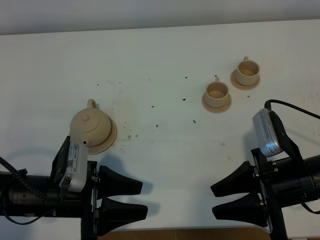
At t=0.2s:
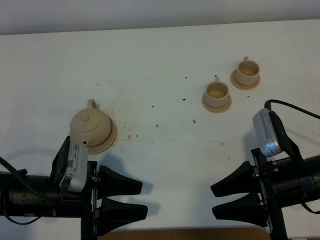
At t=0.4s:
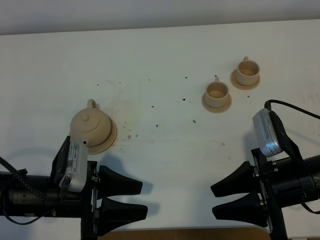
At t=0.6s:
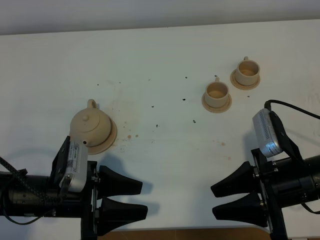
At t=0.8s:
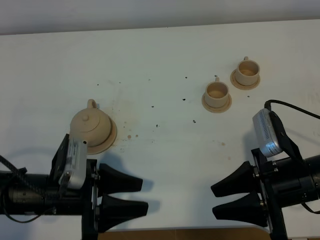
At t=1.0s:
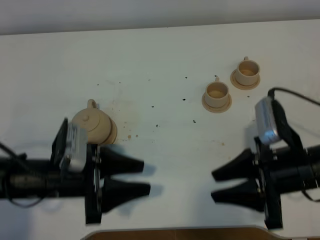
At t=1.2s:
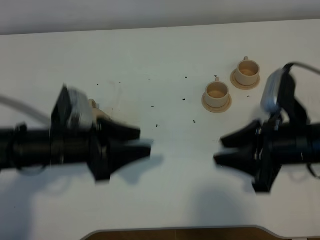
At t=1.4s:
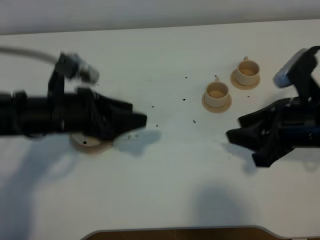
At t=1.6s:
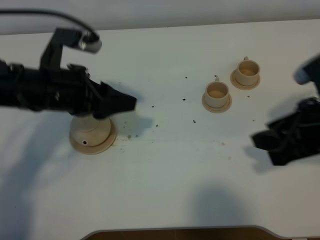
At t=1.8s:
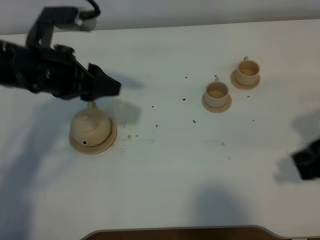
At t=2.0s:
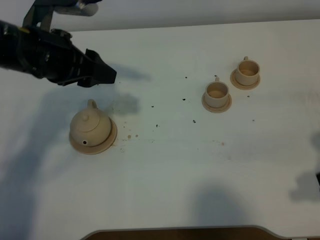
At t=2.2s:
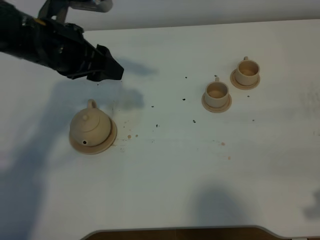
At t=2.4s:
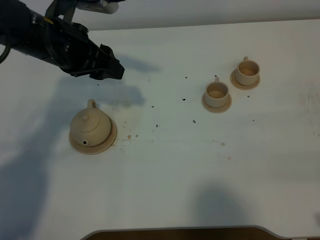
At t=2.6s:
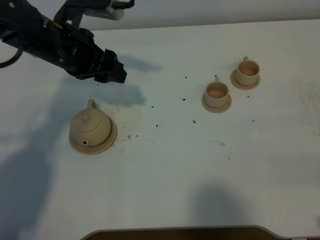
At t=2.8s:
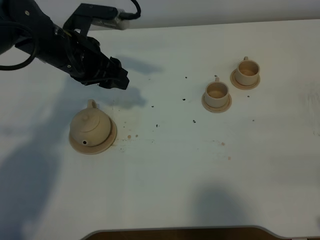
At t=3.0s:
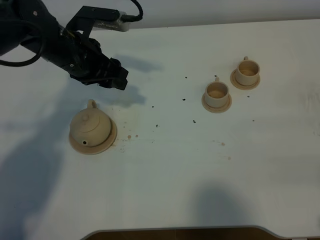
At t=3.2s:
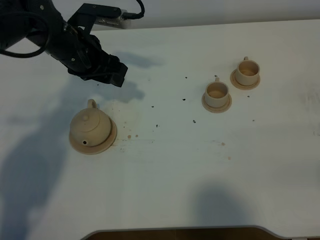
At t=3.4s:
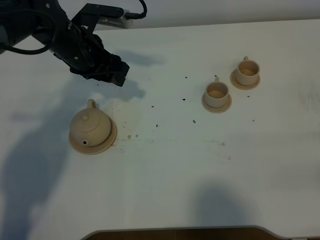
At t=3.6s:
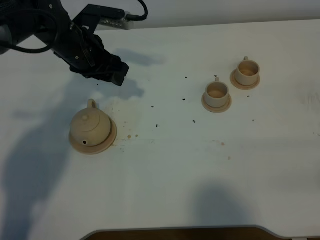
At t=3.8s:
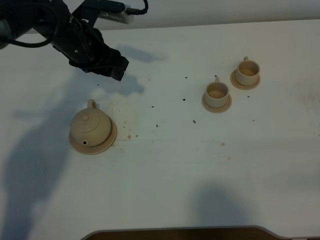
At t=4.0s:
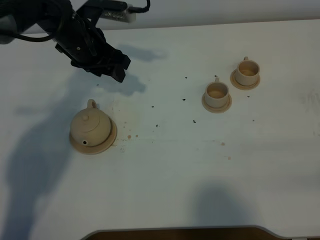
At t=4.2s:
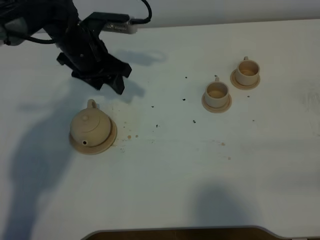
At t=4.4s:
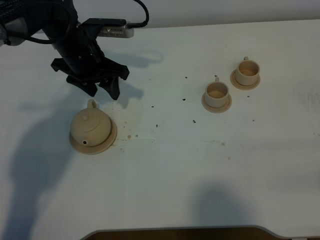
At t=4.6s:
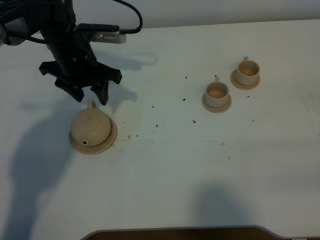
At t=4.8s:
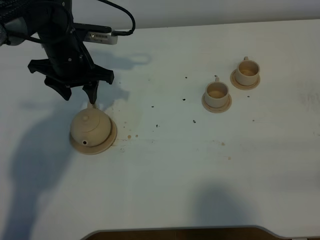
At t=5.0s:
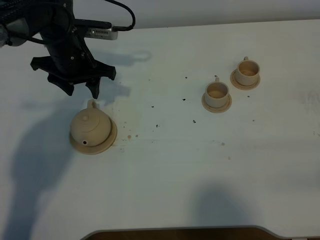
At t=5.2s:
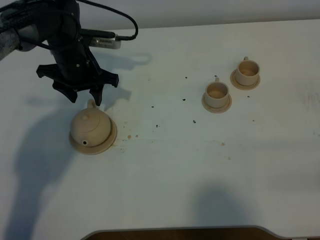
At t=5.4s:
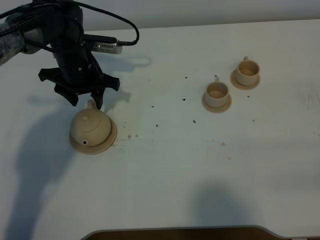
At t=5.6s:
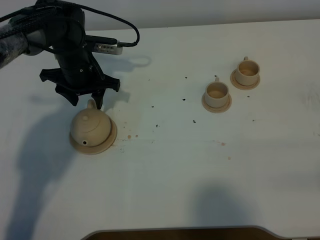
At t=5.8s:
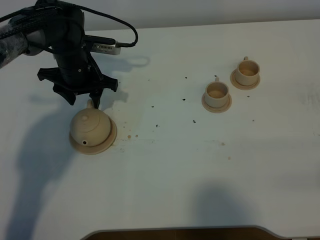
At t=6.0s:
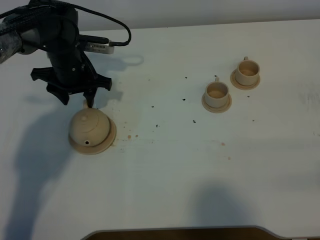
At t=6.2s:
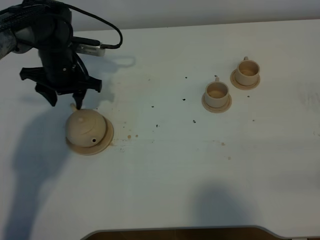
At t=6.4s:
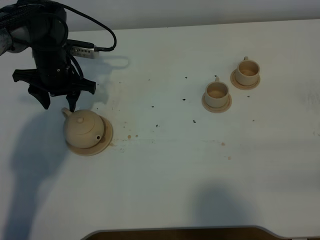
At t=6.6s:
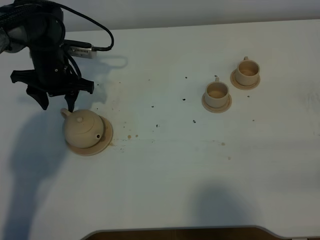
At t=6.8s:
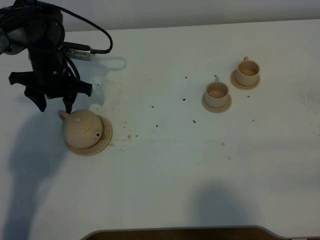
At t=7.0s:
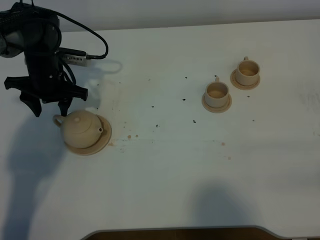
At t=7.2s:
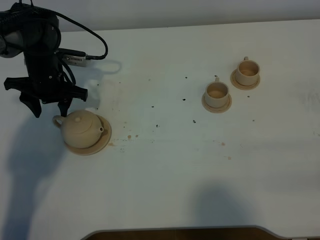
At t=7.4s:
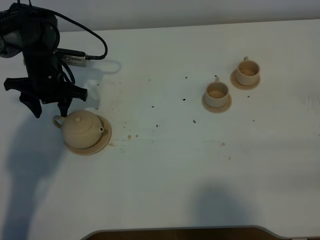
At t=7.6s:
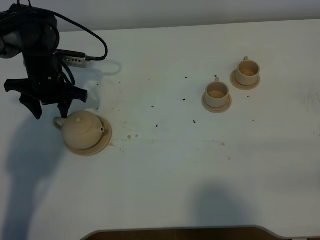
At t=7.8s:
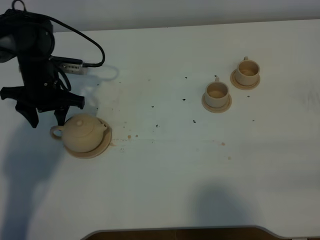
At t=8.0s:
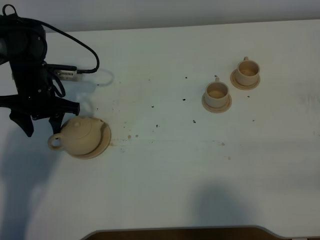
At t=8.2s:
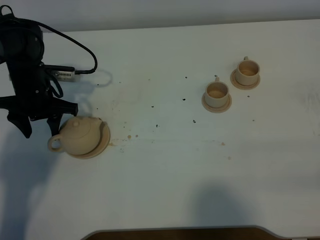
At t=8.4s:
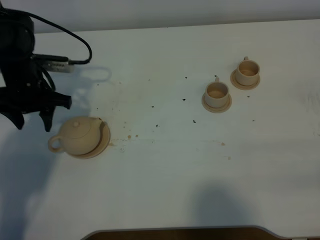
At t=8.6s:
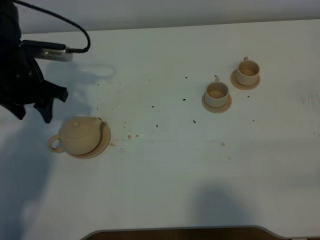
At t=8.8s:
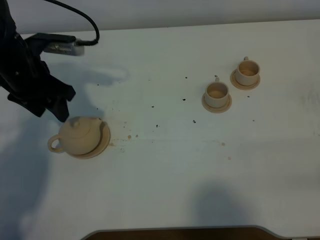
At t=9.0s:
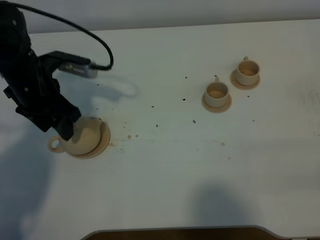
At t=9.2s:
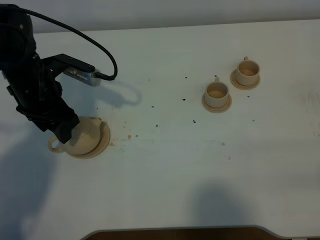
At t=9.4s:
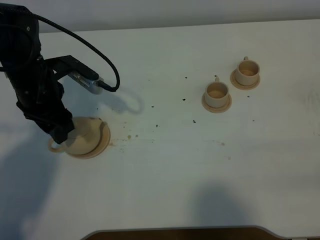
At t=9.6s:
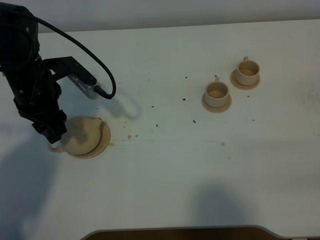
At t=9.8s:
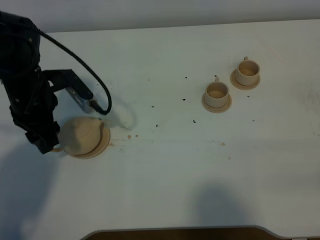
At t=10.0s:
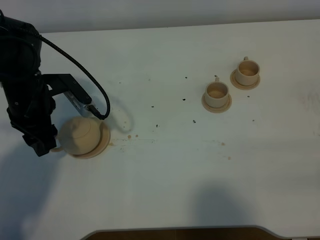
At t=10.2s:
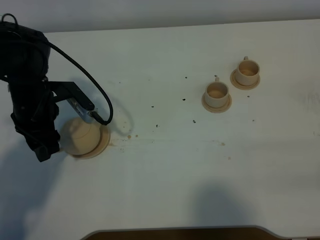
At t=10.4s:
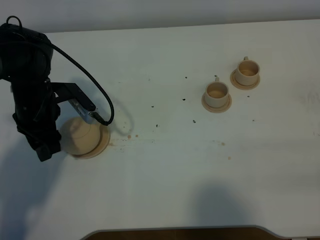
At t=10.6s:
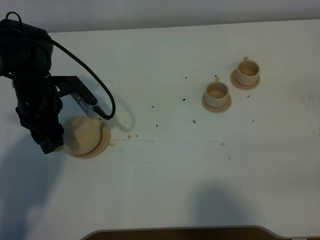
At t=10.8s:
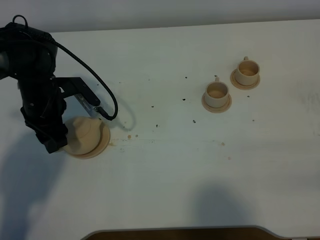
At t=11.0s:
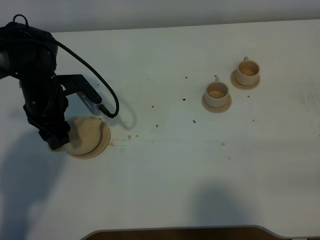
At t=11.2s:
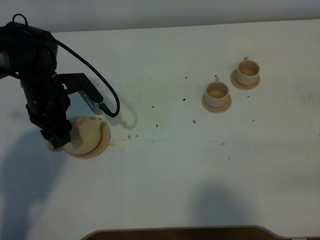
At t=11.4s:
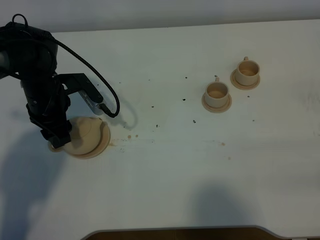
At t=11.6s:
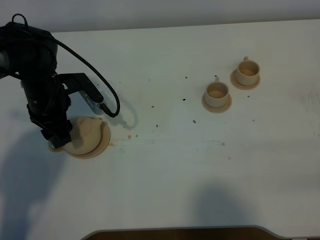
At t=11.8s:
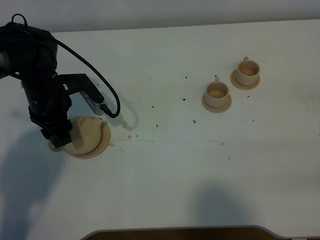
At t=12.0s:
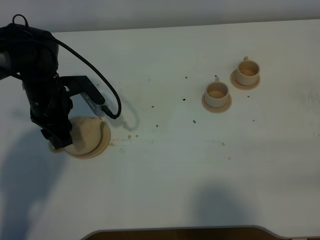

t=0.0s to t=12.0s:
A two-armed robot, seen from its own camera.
Task of the whole recording: grasp the brown teapot and pour the tea into the two brown teacups one by one, put the brown teapot back in its original place.
t=0.0s to t=1.6s: The right gripper heads upward, covering about 10 cm. Meanwhile the left gripper heads forward and upward, covering roughly 15 cm.
t=1.6s to t=3.0s: The left gripper goes roughly 10 cm forward. Meanwhile the right gripper shifts approximately 15 cm backward and to the right.
t=4.4s to t=6.0s: The left gripper ends up some 5 cm from where it was.
t=6.0s to t=7.6s: The grippers move only a little.
t=7.6s to t=9.0s: The left gripper shifts approximately 10 cm backward and upward.
t=10.4s to t=12.0s: The left gripper closes.

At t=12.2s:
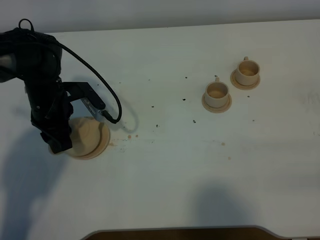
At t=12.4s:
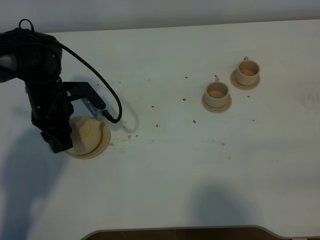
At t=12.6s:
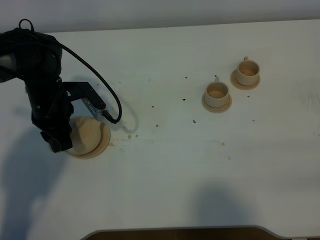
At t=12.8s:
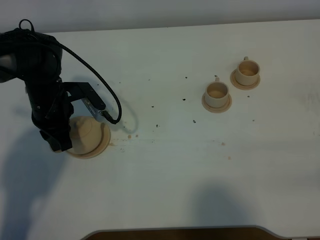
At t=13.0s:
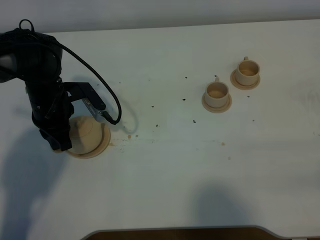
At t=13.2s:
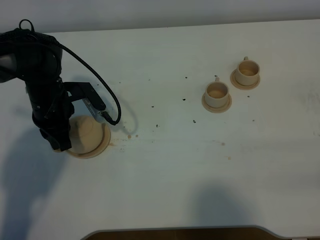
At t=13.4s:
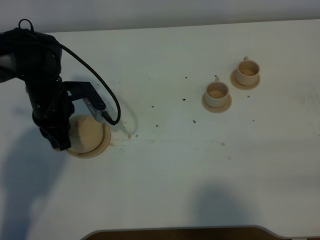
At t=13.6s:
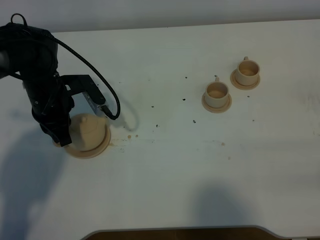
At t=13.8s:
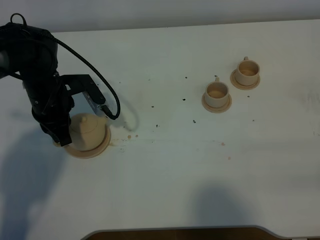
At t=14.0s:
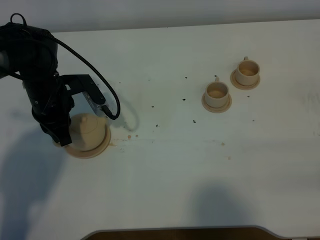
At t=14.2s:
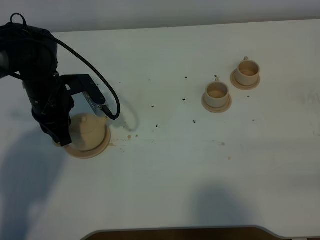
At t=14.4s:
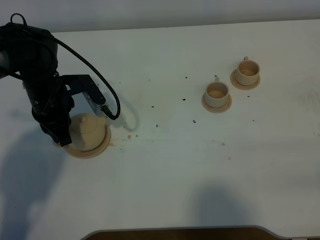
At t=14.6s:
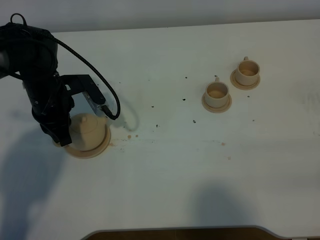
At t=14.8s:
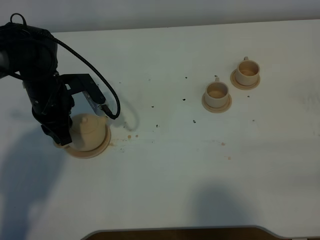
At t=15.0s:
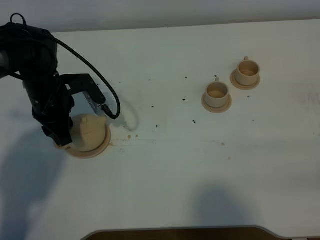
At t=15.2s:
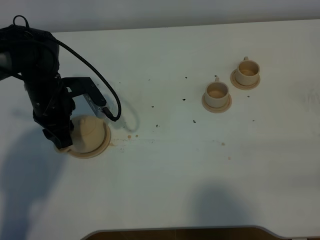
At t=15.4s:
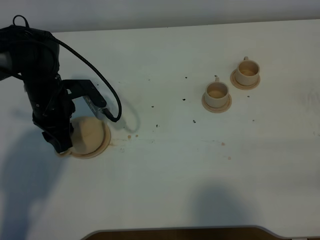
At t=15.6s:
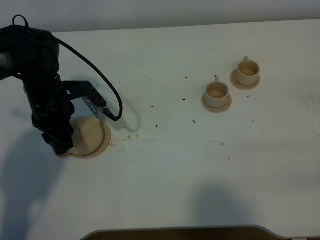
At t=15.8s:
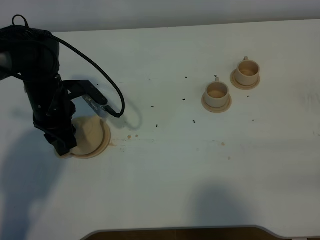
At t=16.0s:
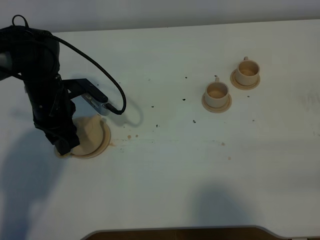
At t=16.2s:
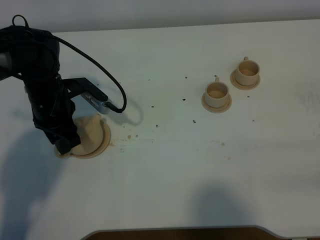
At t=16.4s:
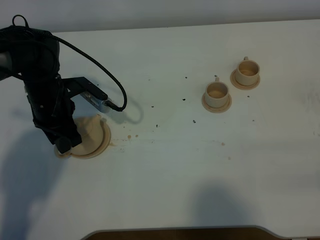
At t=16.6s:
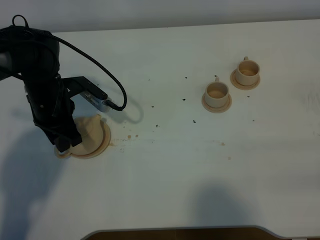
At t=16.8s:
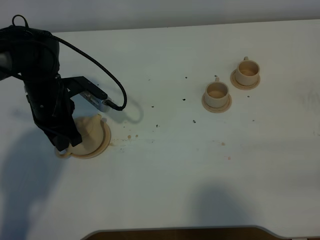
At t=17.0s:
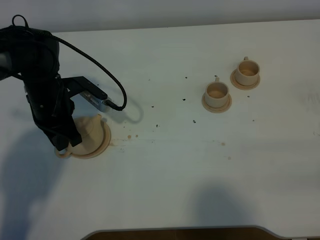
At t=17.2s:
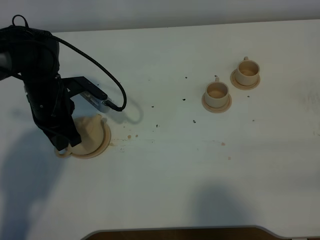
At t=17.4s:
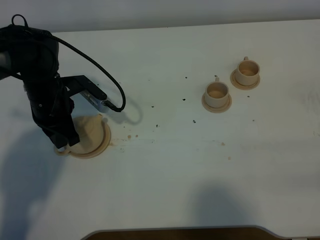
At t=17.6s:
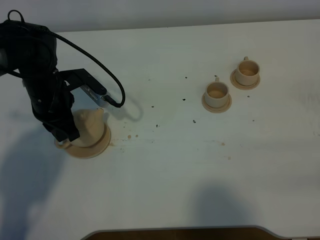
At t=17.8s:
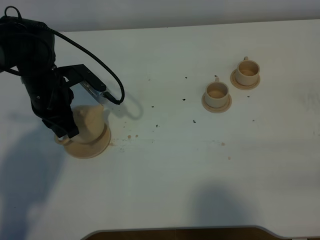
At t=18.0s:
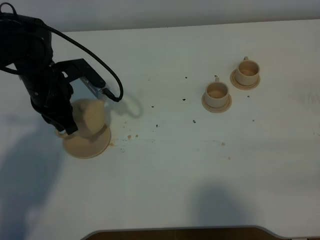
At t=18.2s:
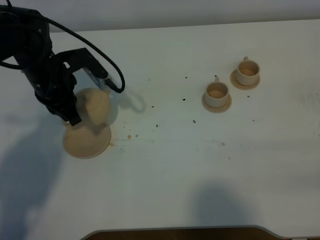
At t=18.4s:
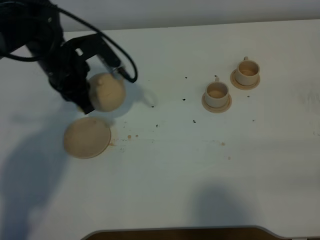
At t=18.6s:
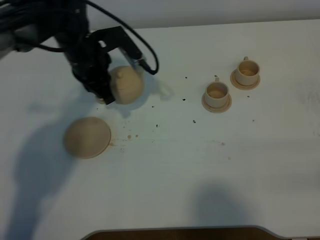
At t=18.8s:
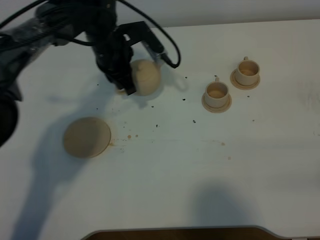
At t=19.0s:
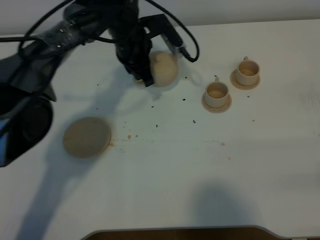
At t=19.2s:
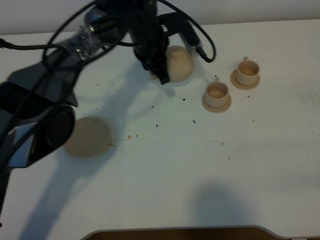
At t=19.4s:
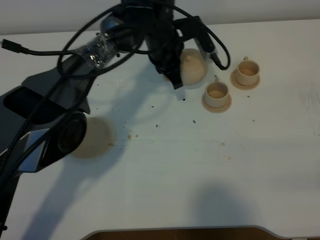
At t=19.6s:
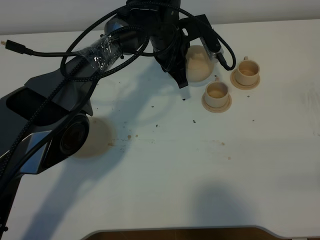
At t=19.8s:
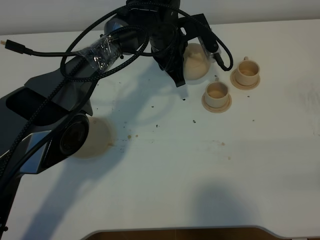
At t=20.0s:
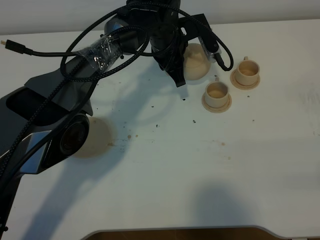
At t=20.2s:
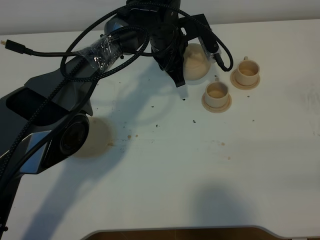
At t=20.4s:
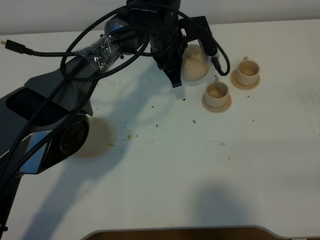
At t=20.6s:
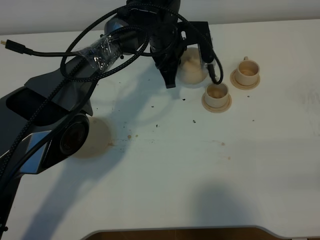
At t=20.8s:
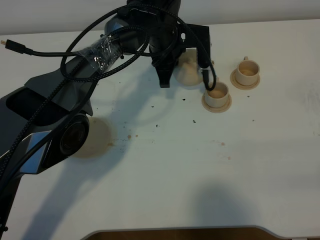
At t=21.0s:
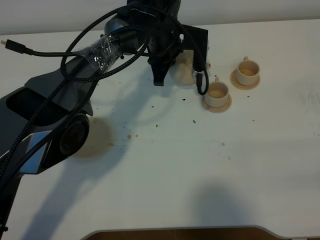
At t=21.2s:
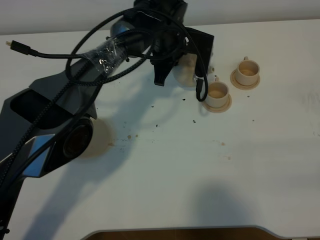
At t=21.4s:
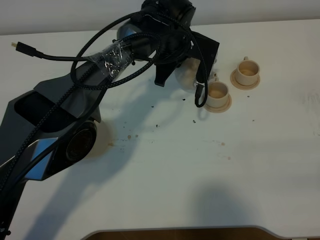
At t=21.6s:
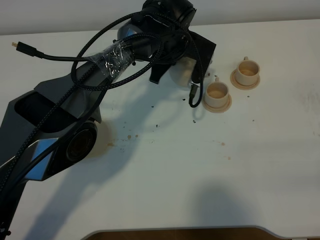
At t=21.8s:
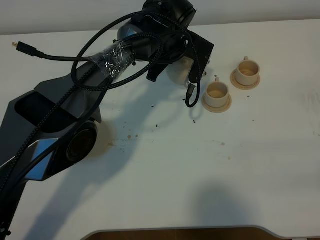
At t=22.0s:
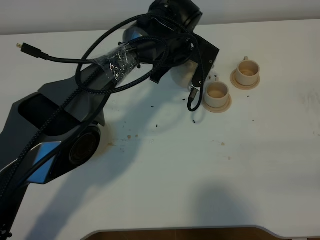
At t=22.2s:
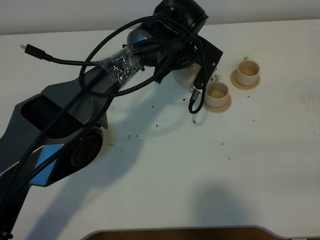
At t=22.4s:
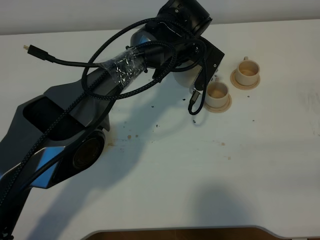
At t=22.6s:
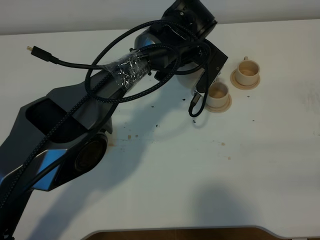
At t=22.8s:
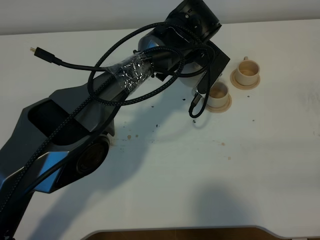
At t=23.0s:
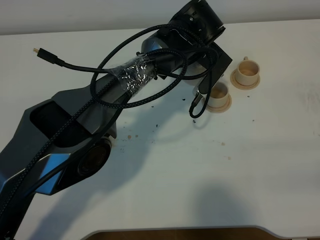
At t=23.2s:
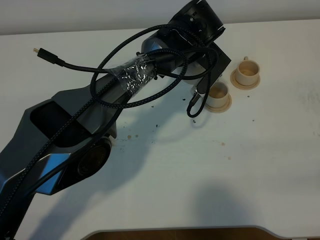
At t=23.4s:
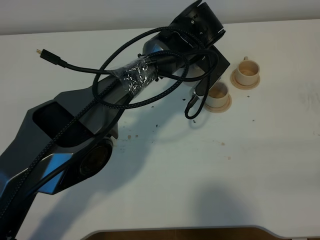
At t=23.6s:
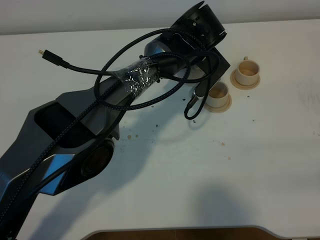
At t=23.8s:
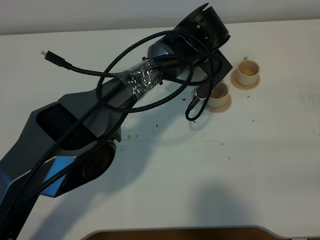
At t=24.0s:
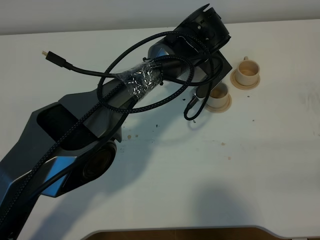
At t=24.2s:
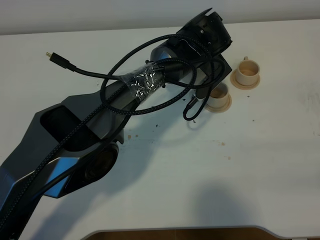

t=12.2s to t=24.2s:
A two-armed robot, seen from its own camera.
Task of the whole recording: grasp the brown teapot and pour the tea into the two brown teacups one by one, put the brown teapot back in its original place.
Step, t=12.2s to t=17.6s: Pick up the teapot with the left gripper.
t=12.2s to t=13.8s: The left gripper closes up.
t=13.8s to t=15.2s: The left gripper opens up.
t=15.2s to t=16.6s: The grippers stay close to where they were, moving slightly.
t=16.6s to t=18.2s: The left gripper ends up approximately 5 cm from where it was.
t=18.2s to t=19.8s: The left gripper heads to the right and forward, covering about 20 cm.
t=22.6s to t=24.2s: The grippers stay close to where they were, moving slightly.
